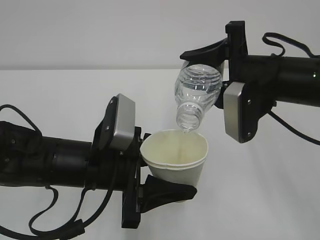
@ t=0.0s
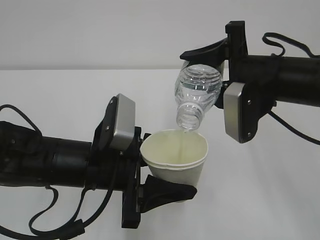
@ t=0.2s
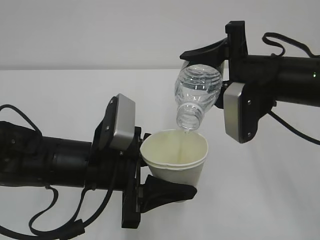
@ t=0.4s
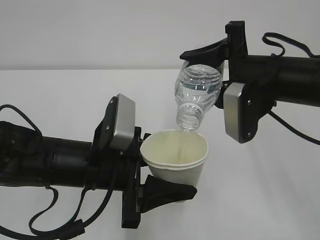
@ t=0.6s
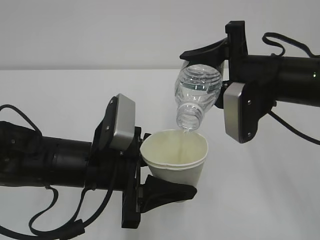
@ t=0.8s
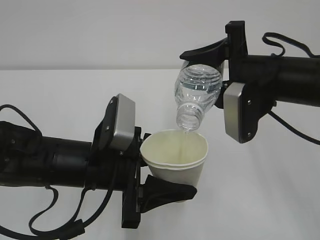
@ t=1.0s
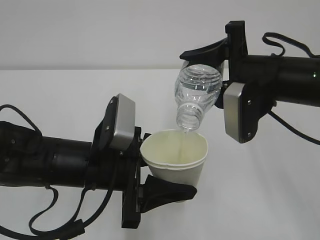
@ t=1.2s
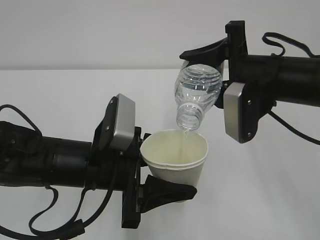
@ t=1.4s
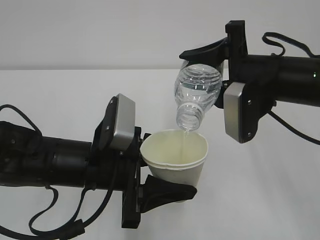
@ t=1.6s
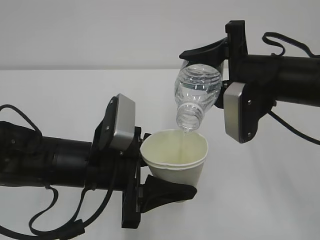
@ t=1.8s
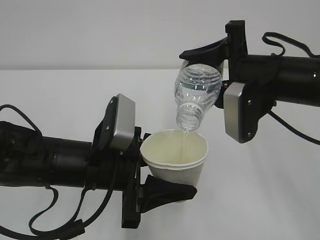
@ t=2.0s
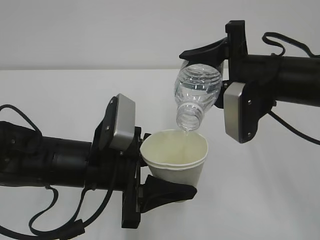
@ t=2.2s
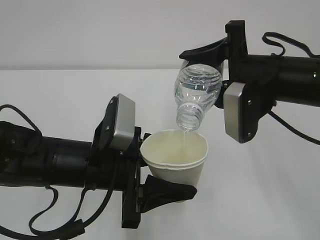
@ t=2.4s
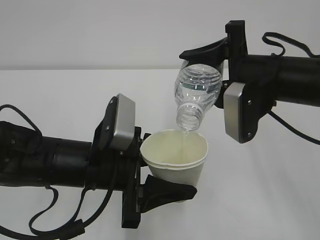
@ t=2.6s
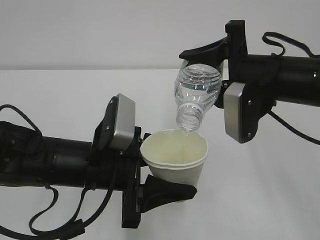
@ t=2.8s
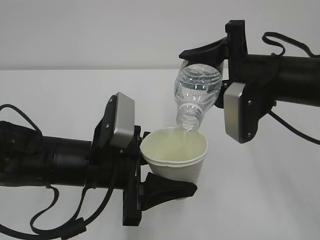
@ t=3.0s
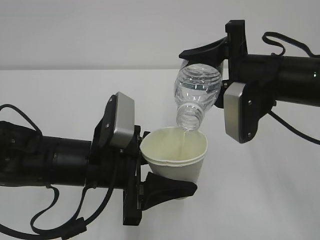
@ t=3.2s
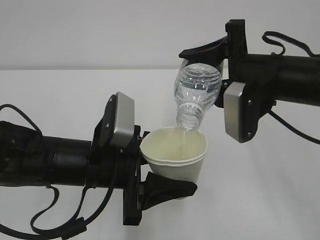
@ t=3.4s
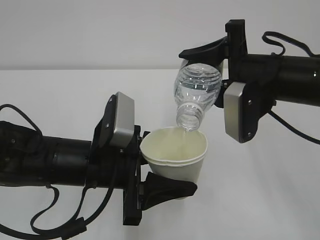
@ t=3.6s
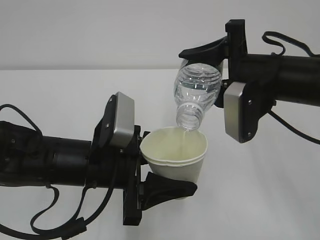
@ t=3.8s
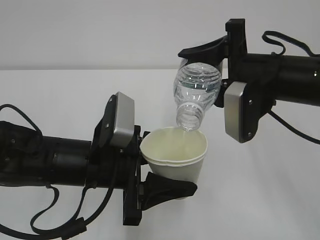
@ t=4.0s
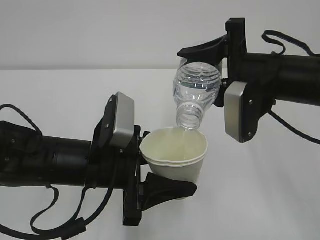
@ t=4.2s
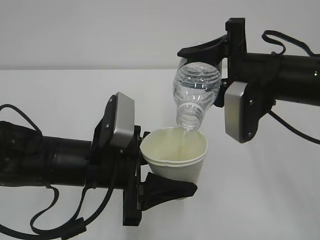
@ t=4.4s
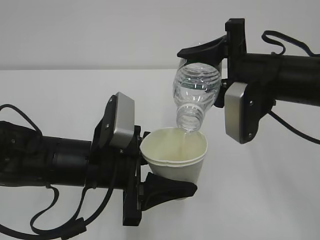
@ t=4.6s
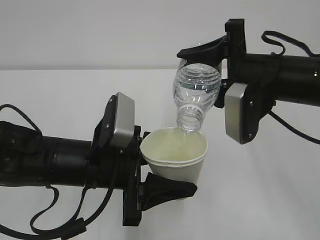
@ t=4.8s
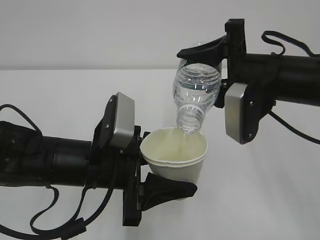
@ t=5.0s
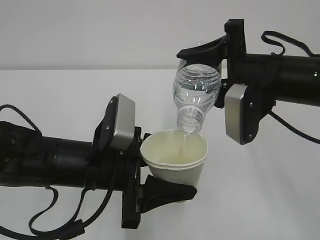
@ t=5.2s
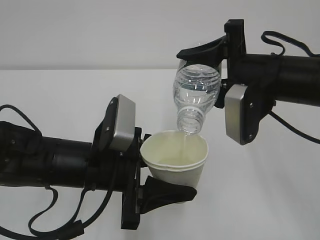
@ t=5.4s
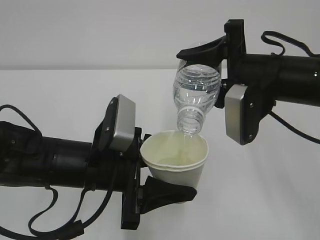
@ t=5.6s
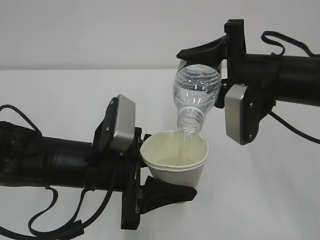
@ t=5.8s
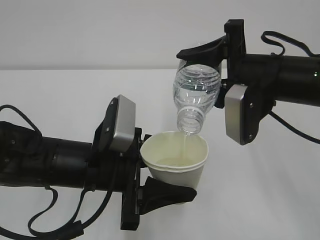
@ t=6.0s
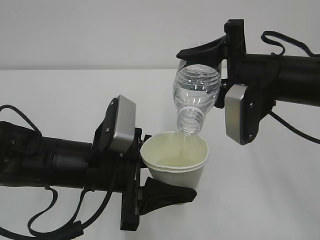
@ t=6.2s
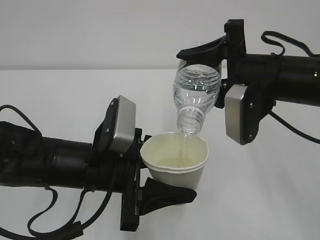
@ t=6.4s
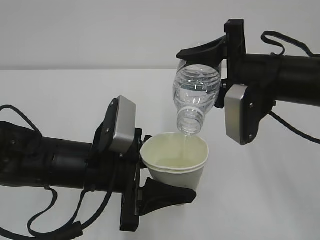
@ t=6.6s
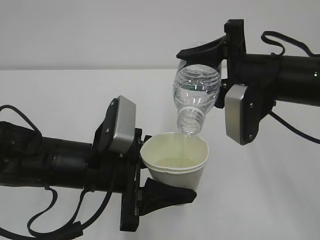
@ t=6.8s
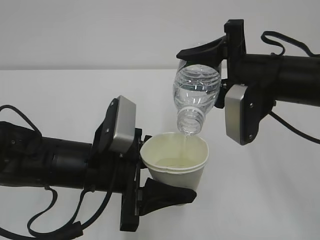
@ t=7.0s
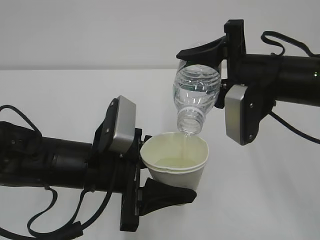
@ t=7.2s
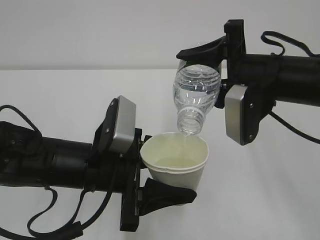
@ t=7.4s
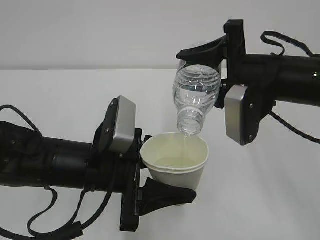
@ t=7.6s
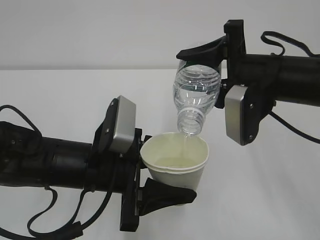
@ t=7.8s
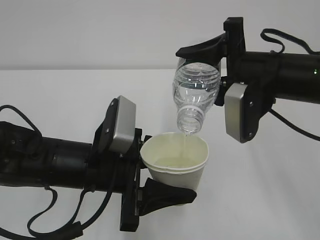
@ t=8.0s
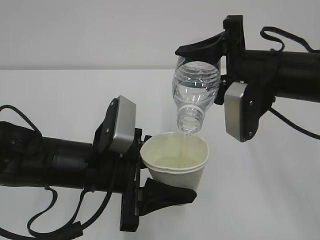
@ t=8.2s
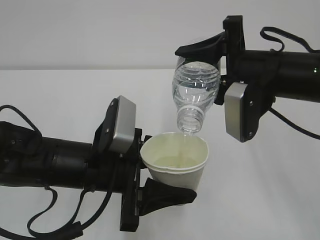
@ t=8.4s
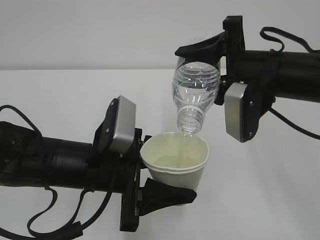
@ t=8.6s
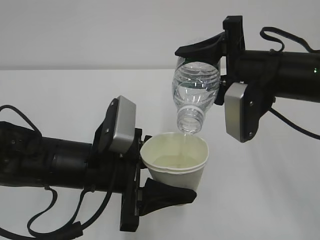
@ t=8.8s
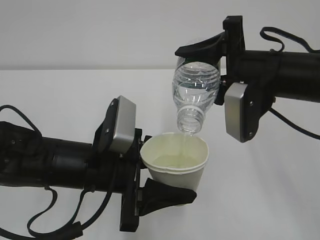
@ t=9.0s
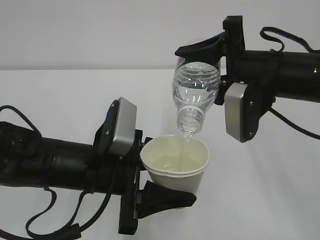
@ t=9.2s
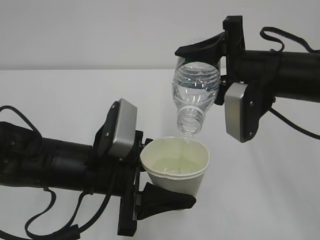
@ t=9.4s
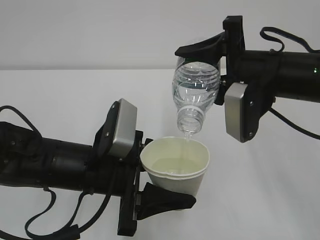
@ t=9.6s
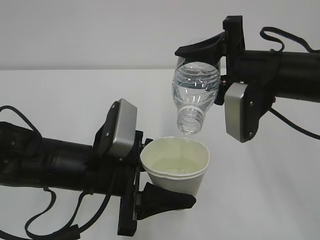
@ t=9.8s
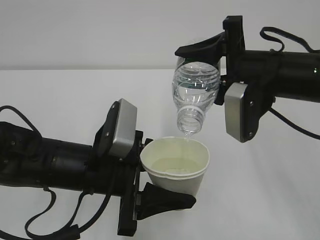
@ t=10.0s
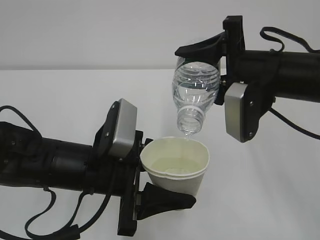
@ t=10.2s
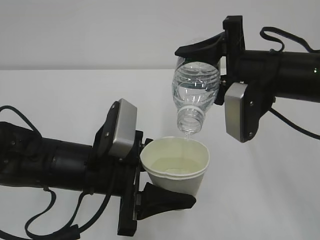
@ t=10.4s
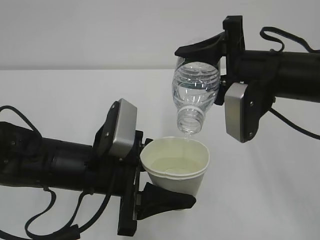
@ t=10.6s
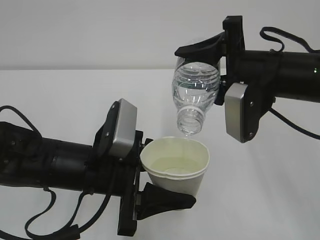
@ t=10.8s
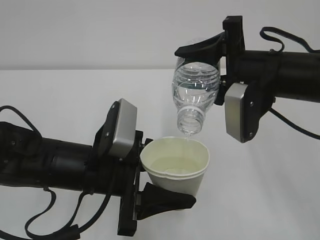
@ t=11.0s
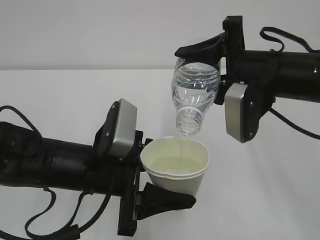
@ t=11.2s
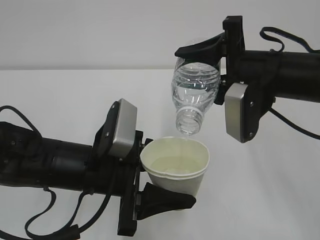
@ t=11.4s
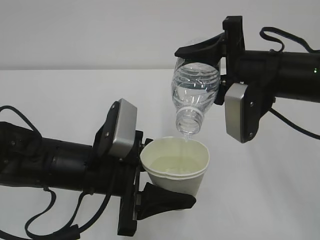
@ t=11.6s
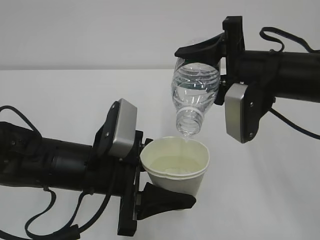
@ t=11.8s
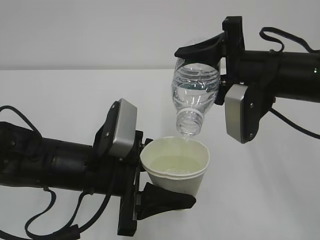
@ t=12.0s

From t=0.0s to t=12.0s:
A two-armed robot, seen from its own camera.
From t=0.0s to t=7.6s: Both grippers stay put.
From t=7.6s to t=12.0s: Neither gripper changes place.

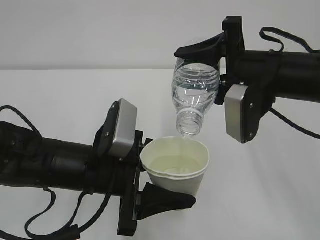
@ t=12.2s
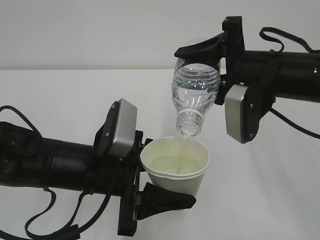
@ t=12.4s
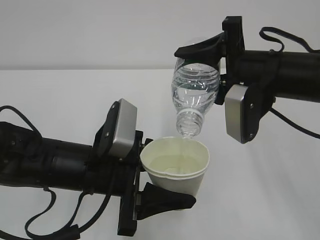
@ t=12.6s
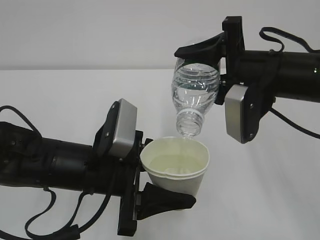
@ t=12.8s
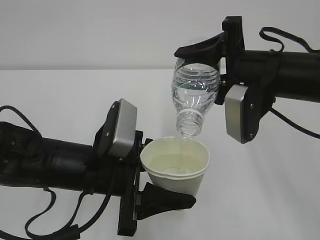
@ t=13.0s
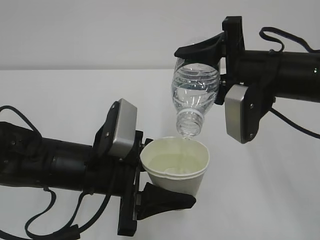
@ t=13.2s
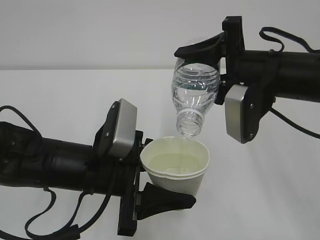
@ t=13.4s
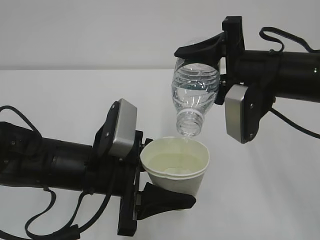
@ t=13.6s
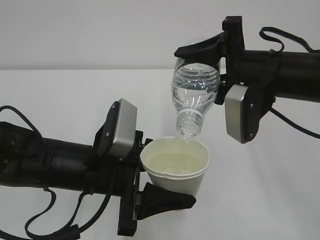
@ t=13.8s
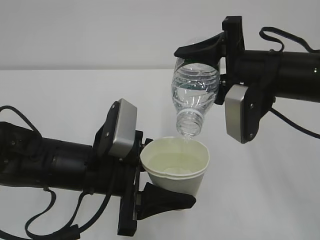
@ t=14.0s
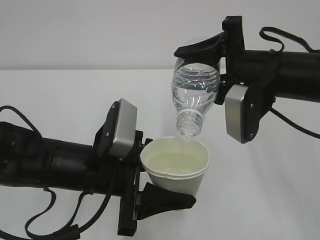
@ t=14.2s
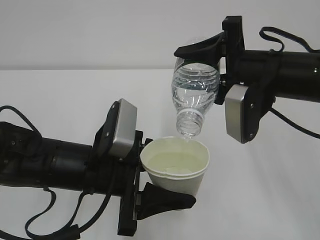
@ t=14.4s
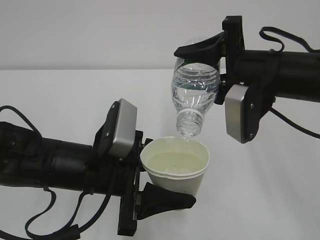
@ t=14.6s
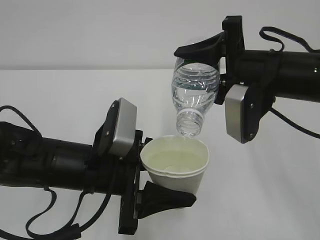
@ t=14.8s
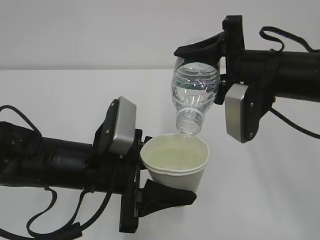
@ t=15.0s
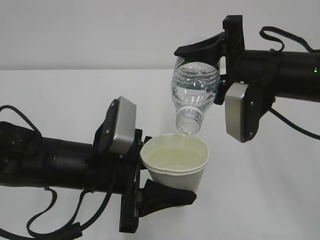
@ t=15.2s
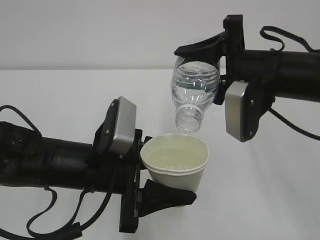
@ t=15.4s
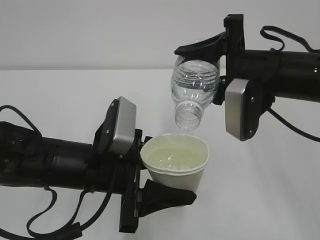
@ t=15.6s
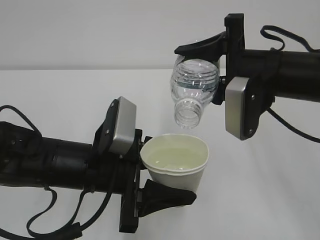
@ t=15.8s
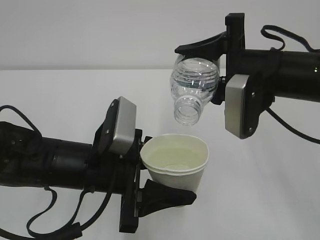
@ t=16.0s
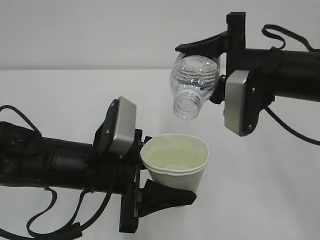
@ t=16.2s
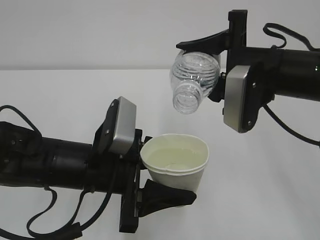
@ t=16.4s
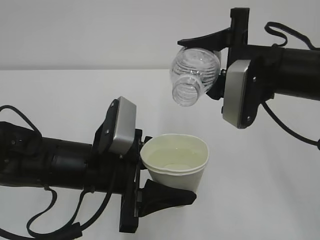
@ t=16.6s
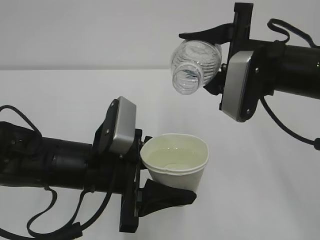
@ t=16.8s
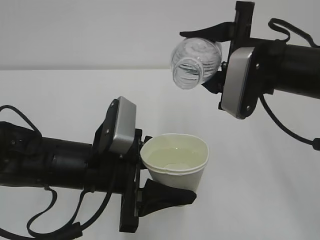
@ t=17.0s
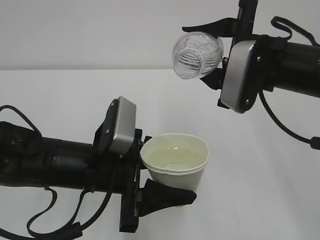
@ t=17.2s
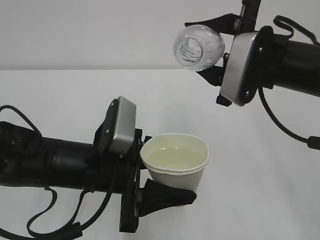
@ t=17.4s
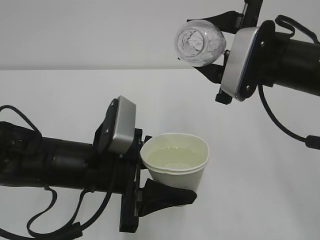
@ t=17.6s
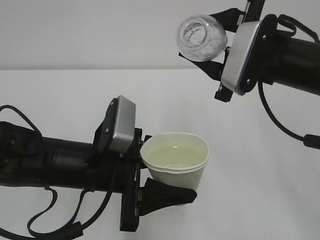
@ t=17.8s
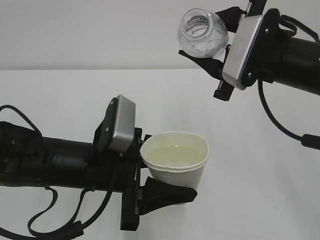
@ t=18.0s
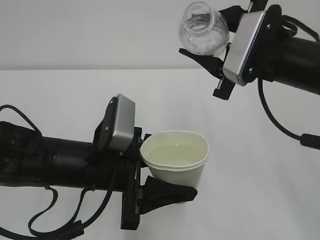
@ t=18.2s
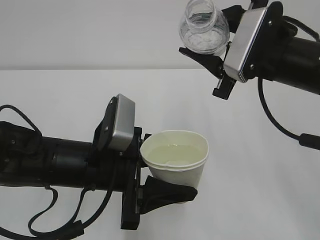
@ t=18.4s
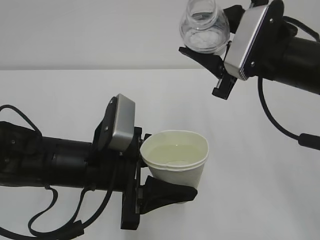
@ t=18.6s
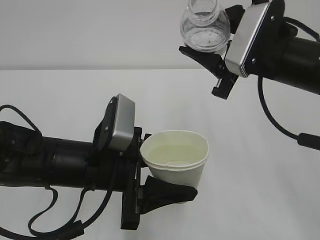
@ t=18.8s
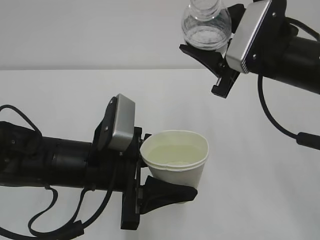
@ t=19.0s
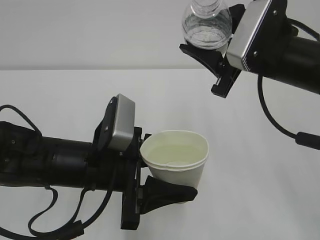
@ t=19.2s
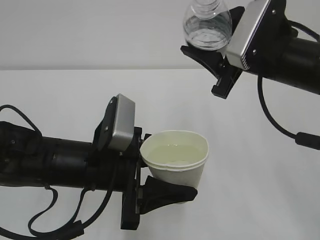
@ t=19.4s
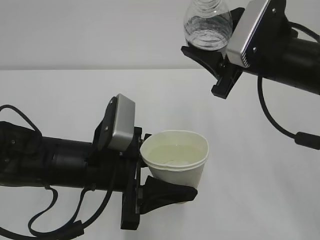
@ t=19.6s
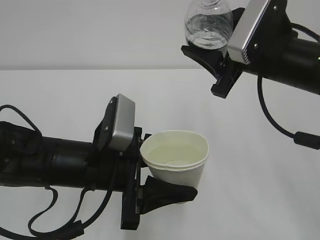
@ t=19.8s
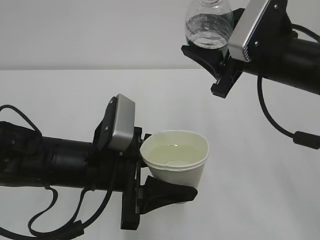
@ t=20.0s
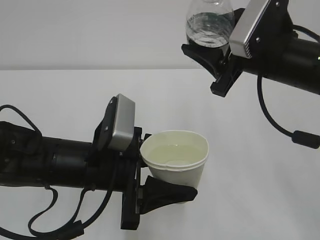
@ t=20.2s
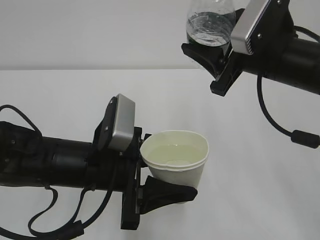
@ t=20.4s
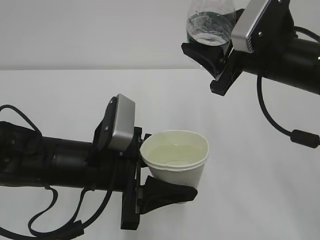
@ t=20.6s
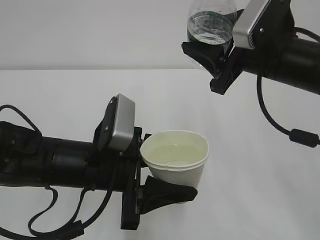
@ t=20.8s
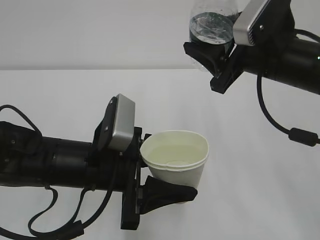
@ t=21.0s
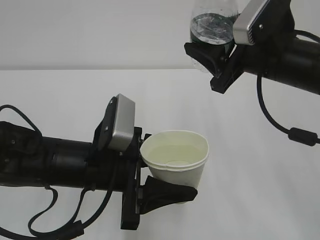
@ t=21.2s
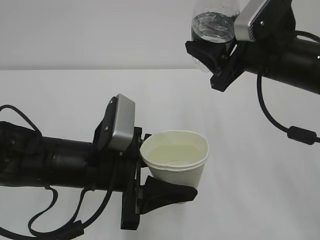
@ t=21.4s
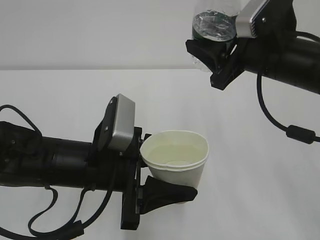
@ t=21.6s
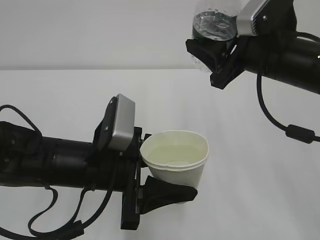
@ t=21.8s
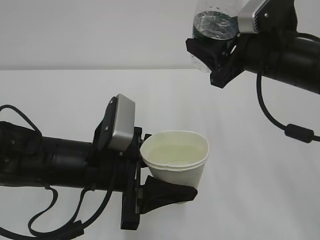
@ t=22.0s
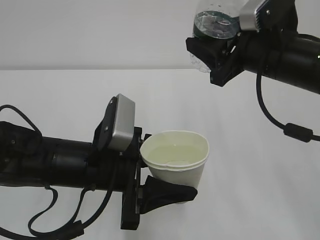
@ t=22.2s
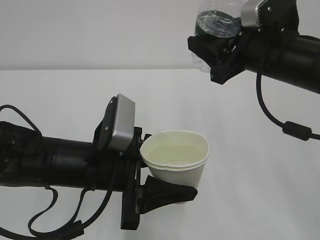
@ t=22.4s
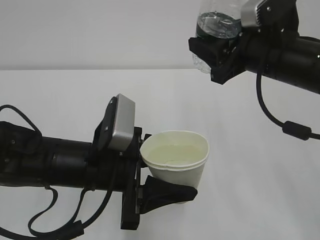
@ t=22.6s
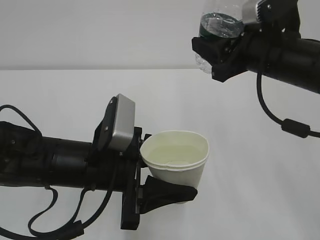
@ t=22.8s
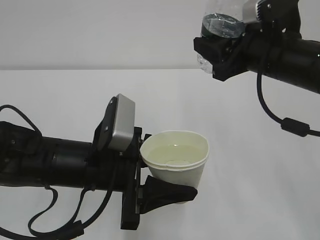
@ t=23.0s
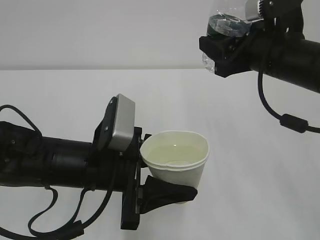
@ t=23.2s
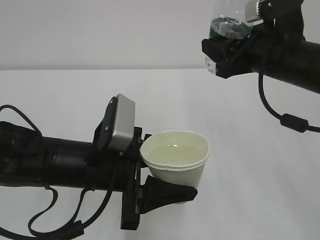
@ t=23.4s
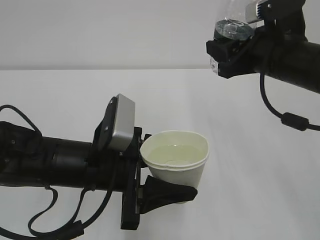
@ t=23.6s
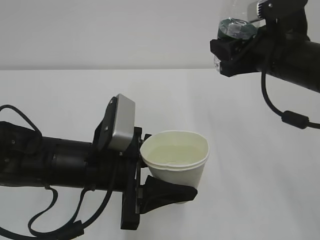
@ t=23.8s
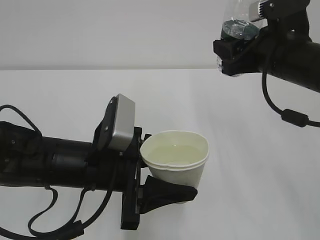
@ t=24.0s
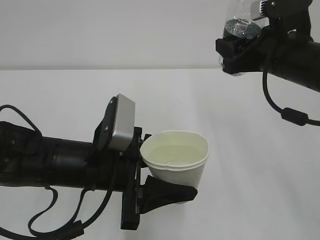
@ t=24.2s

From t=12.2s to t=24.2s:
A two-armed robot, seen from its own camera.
From t=12.2s to t=15.2s: Both grippers stay put.
From t=15.2s to t=16.6s: The grippers move only a little.
From t=18.2s to t=19.8s: The grippers move only a little.
From t=19.8s to t=21.2s: The grippers make only small movements.
From t=21.2s to t=22.6s: The grippers stay close to where they were, moving slightly.
